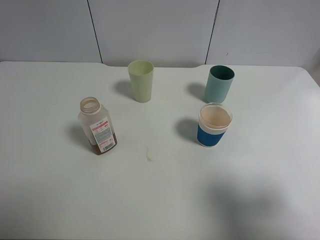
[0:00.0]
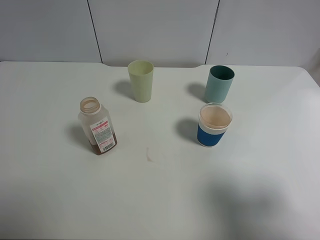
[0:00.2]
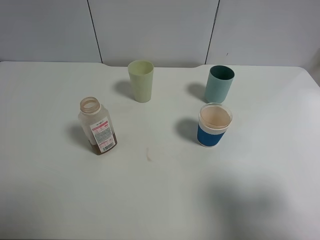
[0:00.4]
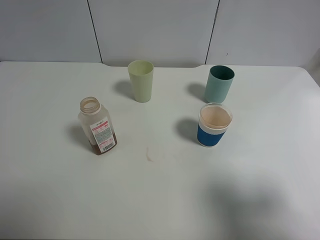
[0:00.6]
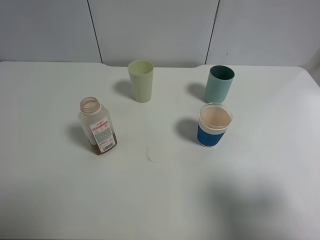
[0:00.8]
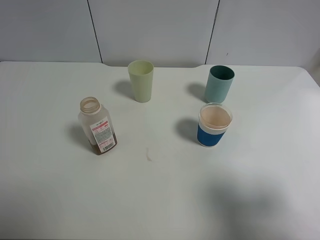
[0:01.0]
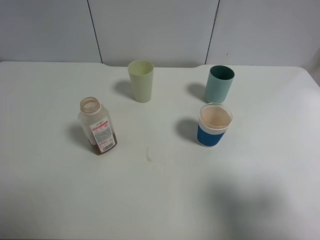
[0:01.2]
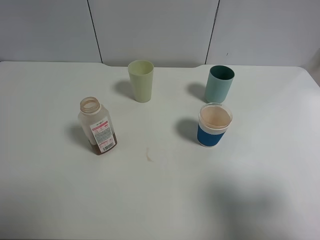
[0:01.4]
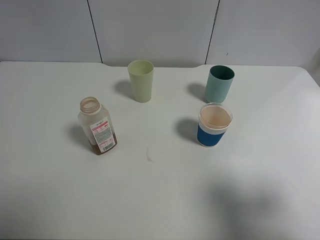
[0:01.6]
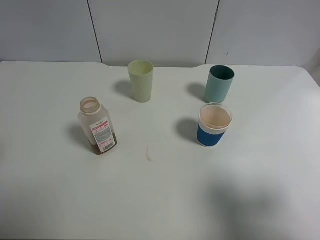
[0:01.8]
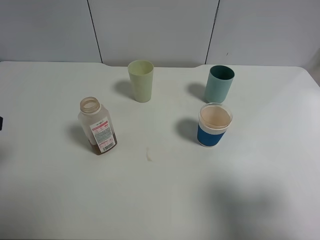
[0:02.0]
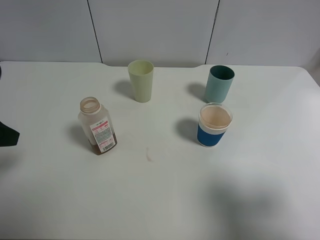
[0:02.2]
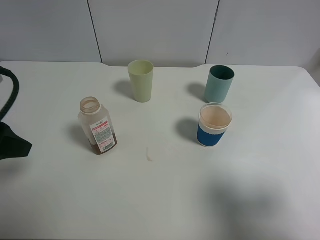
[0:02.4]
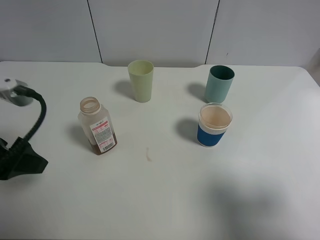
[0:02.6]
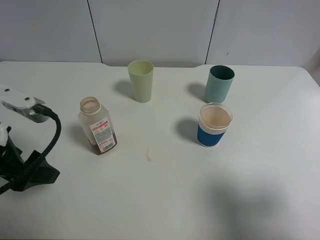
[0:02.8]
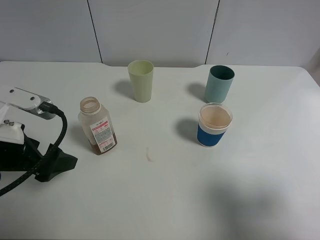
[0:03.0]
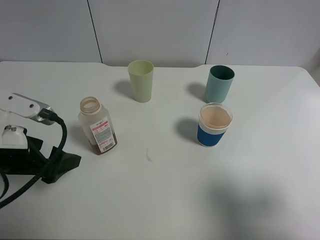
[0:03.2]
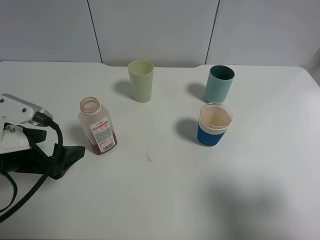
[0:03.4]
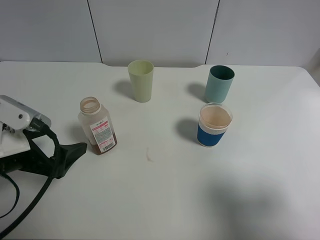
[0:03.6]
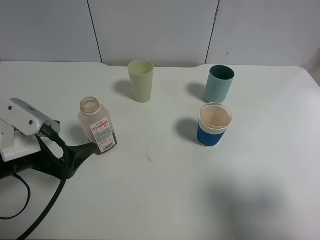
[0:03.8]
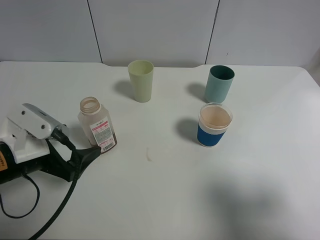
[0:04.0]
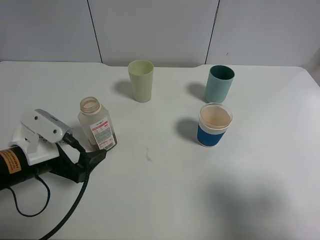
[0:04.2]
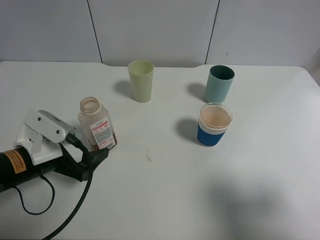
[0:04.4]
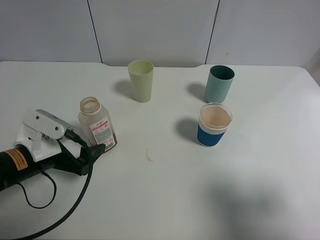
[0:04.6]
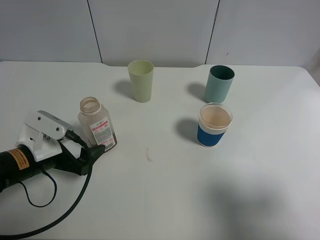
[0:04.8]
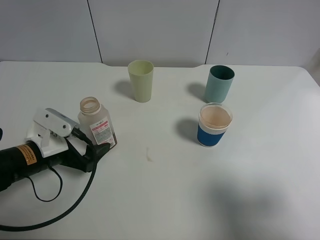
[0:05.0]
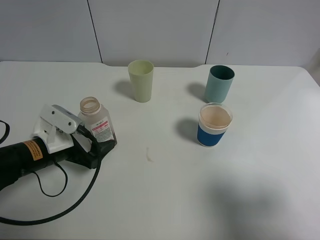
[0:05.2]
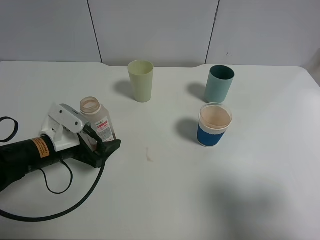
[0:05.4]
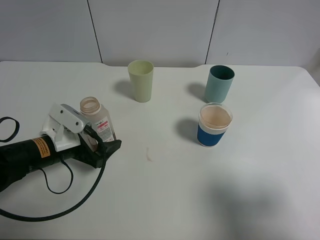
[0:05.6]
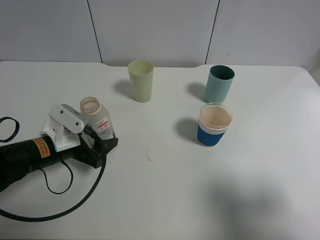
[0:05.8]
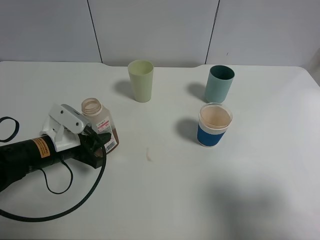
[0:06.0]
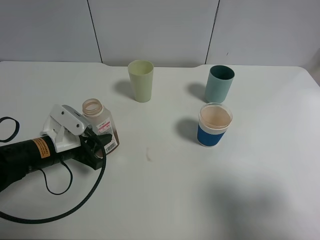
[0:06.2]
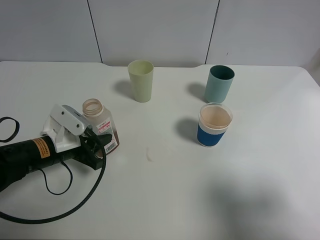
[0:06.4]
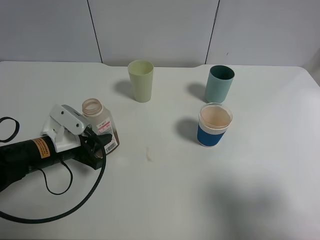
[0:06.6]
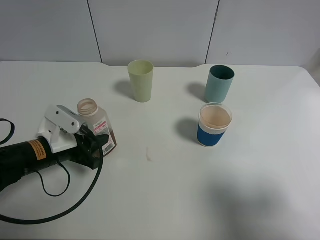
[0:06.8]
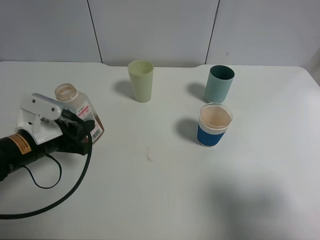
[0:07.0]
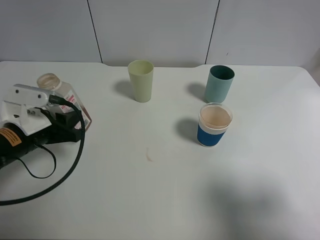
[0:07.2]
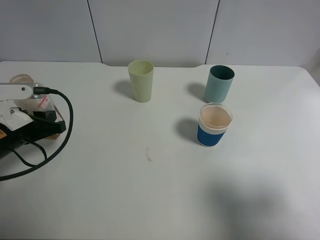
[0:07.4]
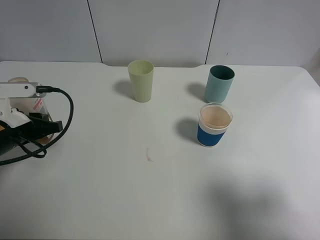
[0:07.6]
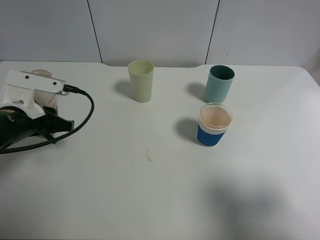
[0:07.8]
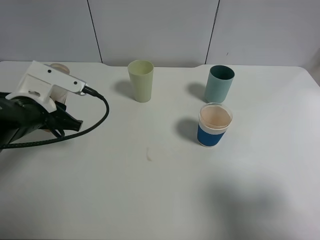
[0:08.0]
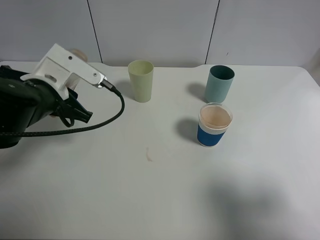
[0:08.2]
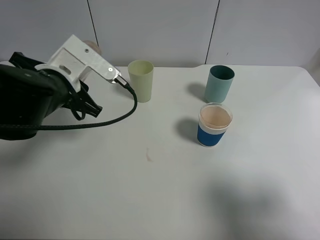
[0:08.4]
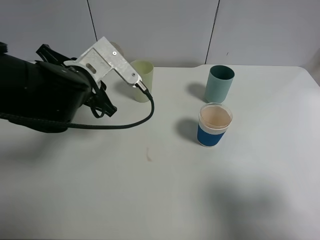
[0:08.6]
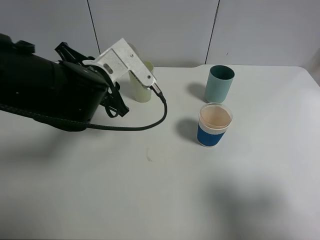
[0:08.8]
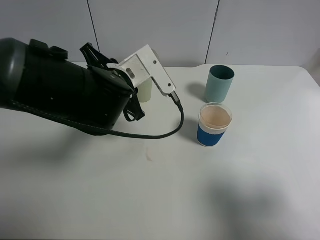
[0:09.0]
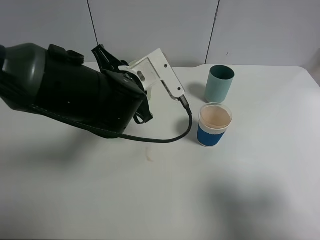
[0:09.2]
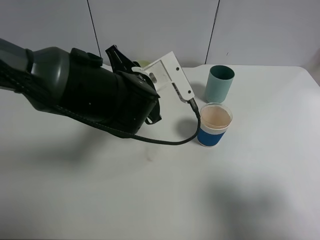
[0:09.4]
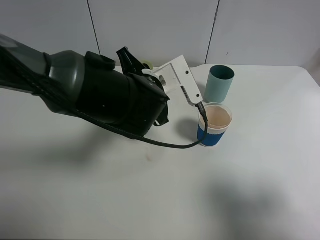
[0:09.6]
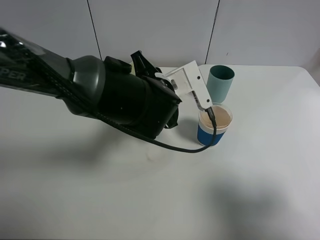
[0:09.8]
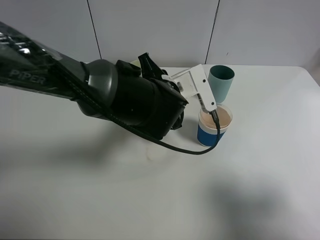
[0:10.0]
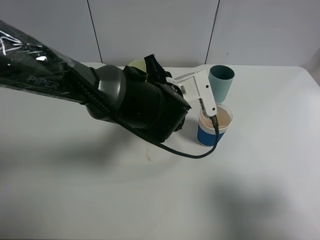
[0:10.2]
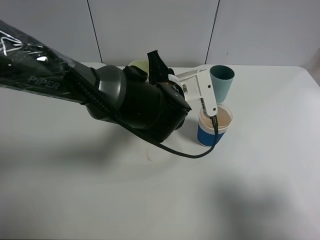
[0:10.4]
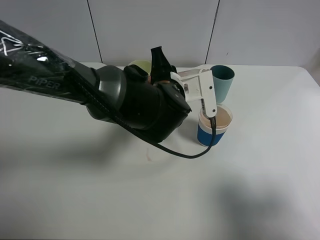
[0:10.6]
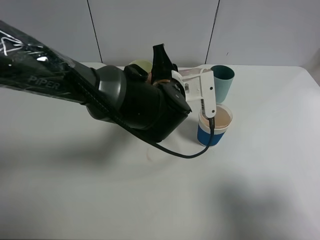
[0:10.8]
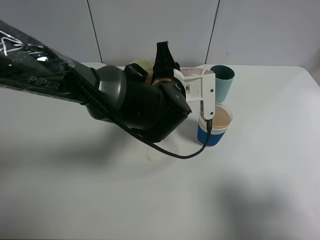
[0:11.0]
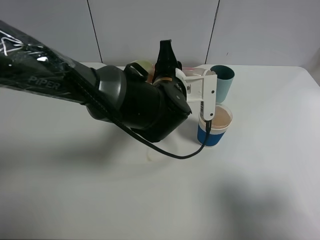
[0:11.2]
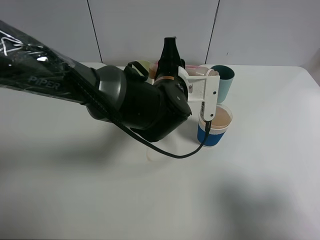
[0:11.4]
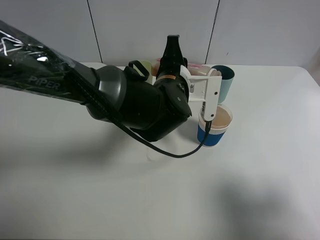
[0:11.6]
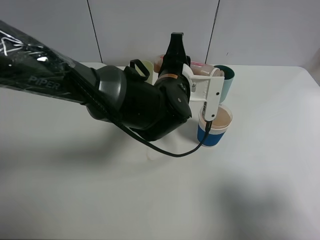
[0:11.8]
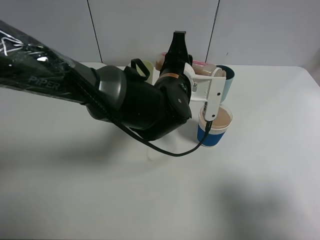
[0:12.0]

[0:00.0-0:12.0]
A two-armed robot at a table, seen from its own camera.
Task of the whole recording: use a clamp to hold the bottle of the drink, pour the beverage into a random cup, then clamp the cup containing the drink and pour the drink into another random cup.
Step, 0:00.0 to 0:06.8: Pick up the drink bottle with left gripper.
0:01.6 to 0:03.0: The left gripper shifts about 15 cm downward, forward and to the right.
0:03.0 to 0:04.4: The left gripper shifts approximately 5 cm downward.
0:04.4 to 0:06.0: The left gripper ends up about 5 cm from where it was, and closes up.
0:06.0 to 0:07.6: The left gripper moves to the left, about 5 cm.
0:07.6 to 0:09.0: The left gripper is displaced to the right by some 20 cm.
0:09.0 to 0:10.4: The left gripper goes approximately 10 cm to the right.

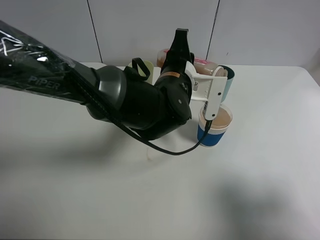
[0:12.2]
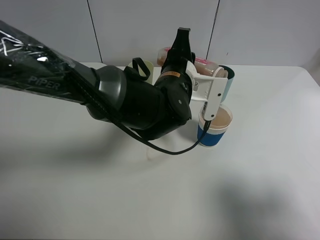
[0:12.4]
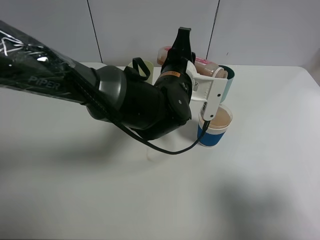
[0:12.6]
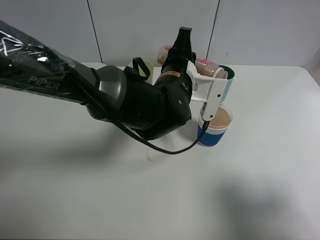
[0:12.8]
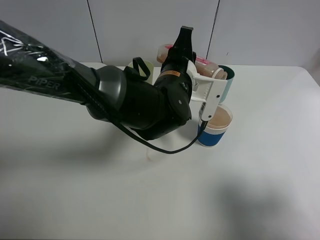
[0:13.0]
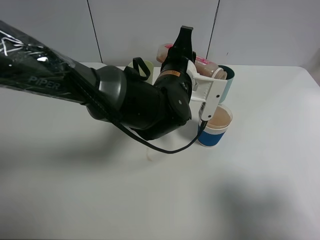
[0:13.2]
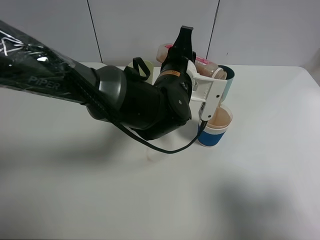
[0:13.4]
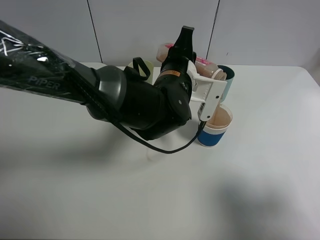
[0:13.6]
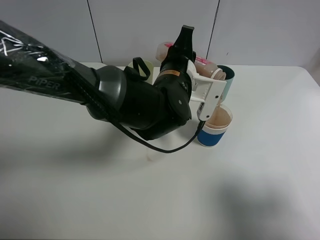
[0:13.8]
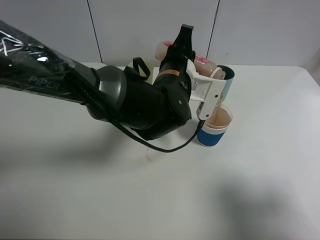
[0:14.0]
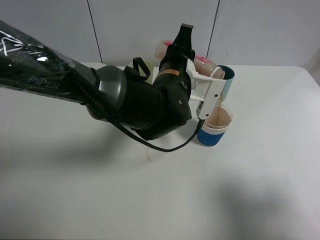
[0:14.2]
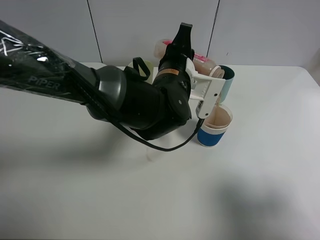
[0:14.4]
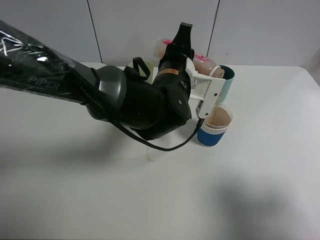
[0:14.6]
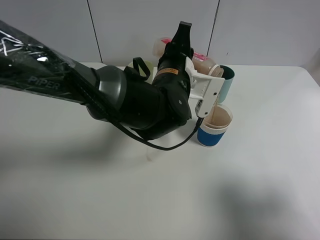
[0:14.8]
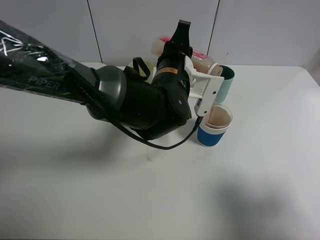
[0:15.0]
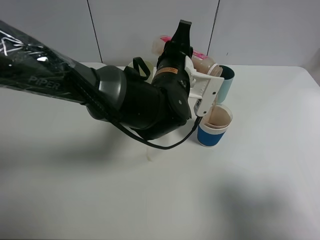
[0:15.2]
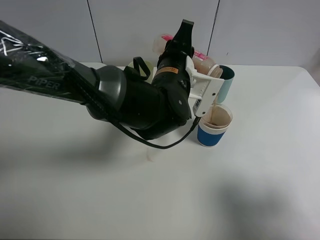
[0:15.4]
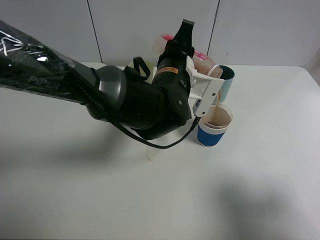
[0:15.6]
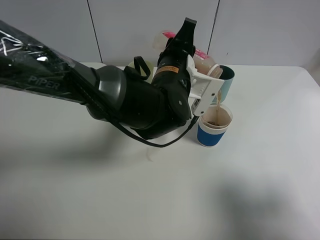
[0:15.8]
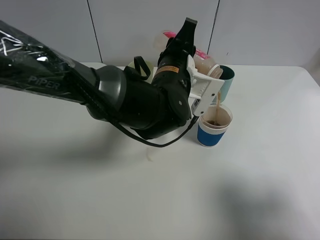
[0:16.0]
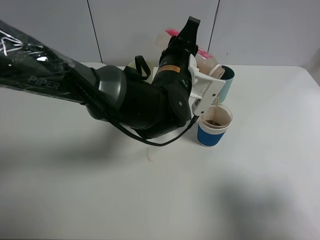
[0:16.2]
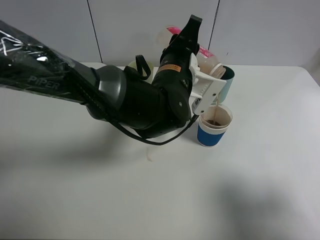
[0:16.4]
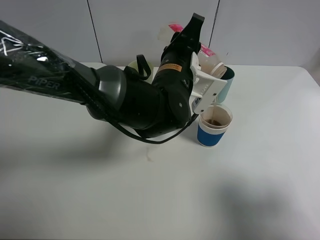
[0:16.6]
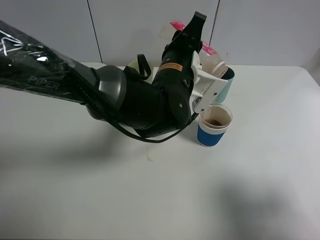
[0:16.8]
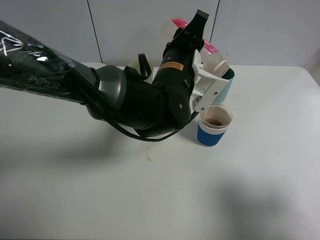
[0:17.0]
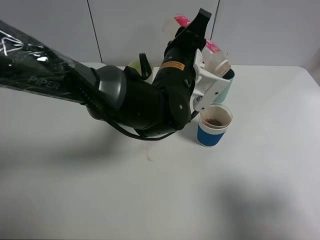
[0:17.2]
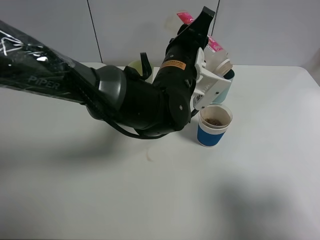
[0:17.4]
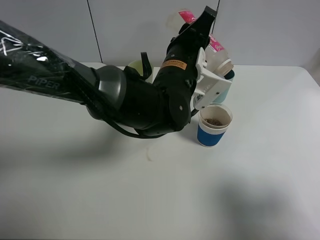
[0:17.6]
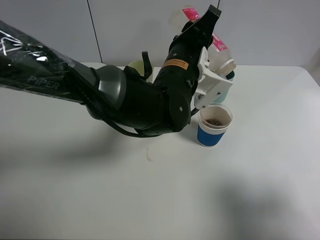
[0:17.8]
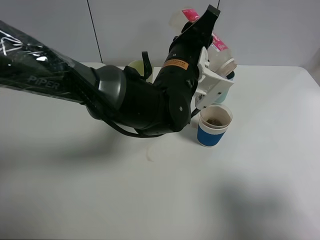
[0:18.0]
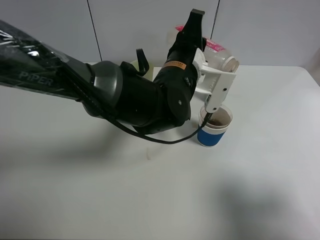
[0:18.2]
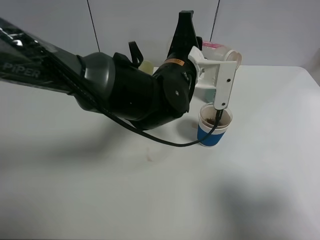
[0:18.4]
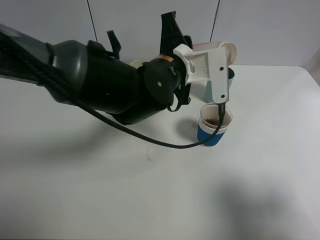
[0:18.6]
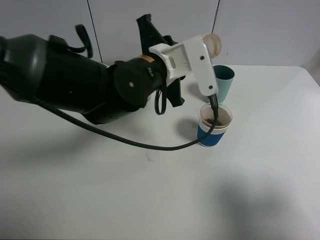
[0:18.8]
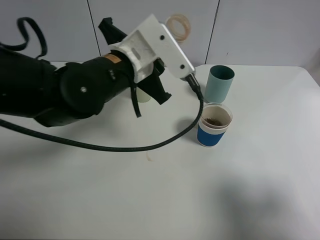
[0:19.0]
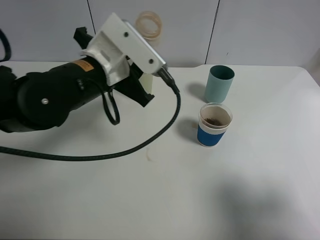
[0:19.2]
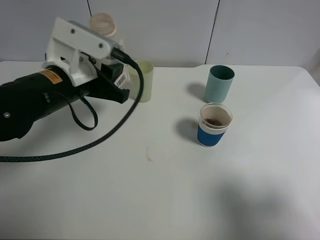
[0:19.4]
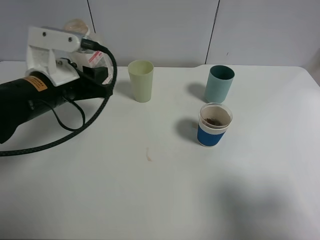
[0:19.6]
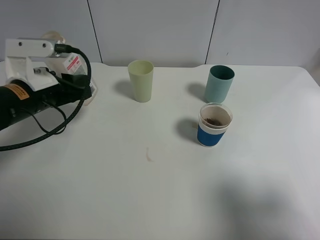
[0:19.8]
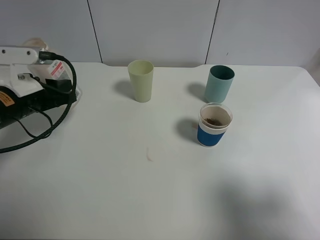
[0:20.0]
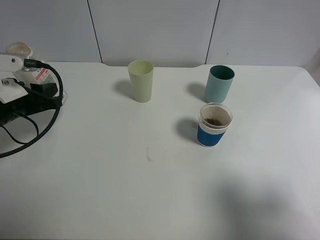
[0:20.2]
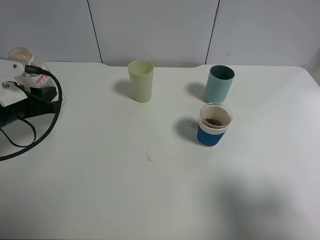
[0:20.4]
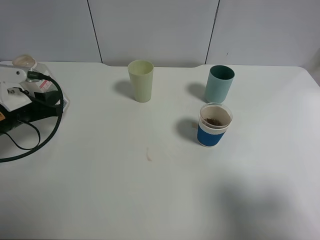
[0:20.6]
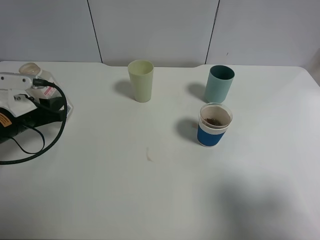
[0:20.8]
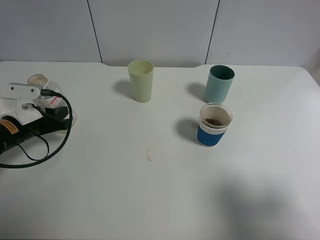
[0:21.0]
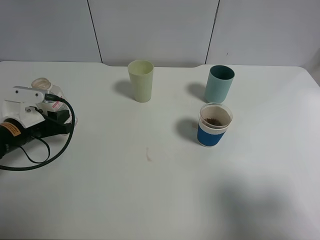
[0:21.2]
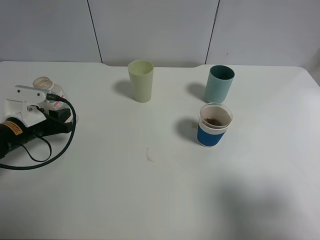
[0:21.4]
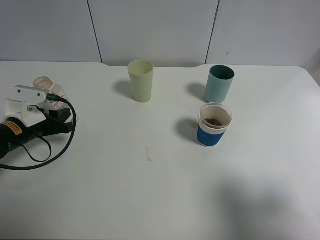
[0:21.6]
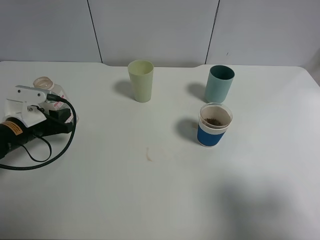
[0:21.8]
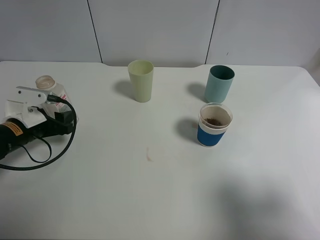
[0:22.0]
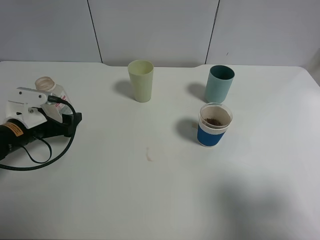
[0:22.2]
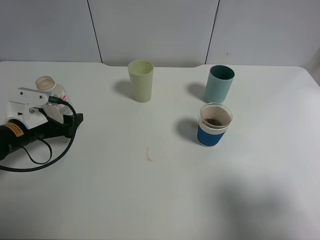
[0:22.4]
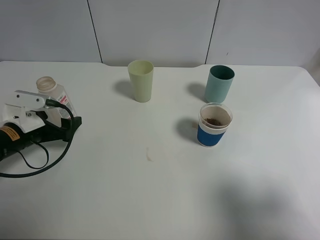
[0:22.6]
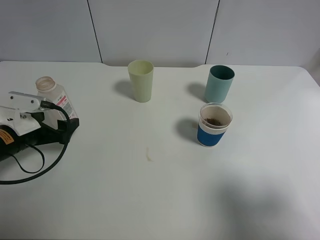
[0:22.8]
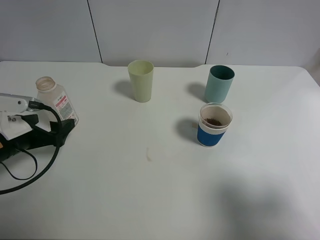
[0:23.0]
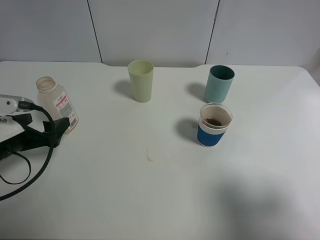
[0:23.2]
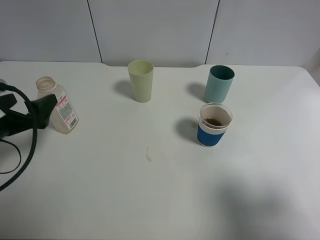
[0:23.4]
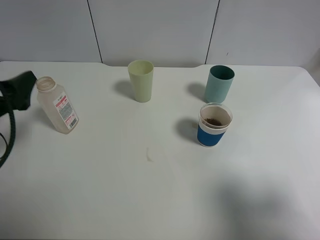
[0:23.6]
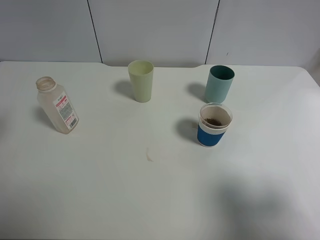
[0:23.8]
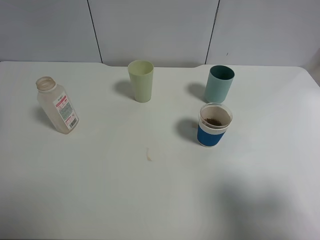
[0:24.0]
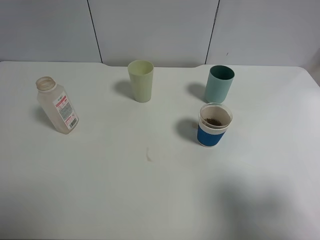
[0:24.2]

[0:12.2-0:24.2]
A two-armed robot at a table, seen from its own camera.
Task of the whole recording: use a clamp to hold the bottle of the drink, pour the beverage into a random cup, then clamp the cup containing the drink and pour the drink into another random cup.
Step, 0:12.2 to 0:18.0: Pour the drink into the paper cup with left gripper.
Step, 0:18.2 to 0:22.0: Place the drink bottle on the table with left gripper.
0:12.2 to 0:13.8: The grippers make only small movements.
0:13.8 to 0:15.2: Both grippers stay about where they are.
0:15.2 to 0:16.6: The grippers stay close to where they were, moving slightly.
0:16.6 to 0:18.2: The grippers make only small movements.
0:18.2 to 0:19.8: The left gripper travels to the left by roughly 25 cm.
0:19.8 to 0:21.2: The left gripper heads downward and to the left, covering some 10 cm.
0:21.2 to 0:22.6: The left gripper opens.
0:22.6 to 0:24.2: The left gripper goes some 25 cm upward and backward.
